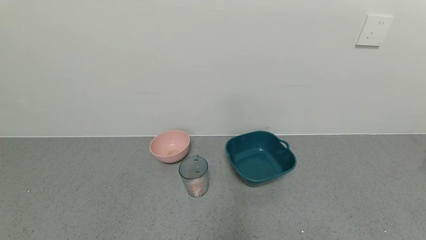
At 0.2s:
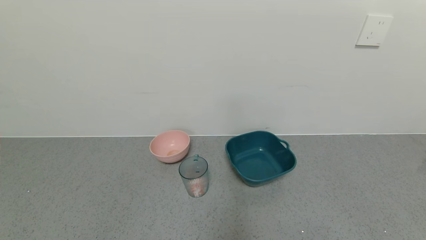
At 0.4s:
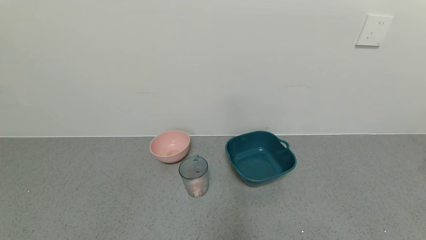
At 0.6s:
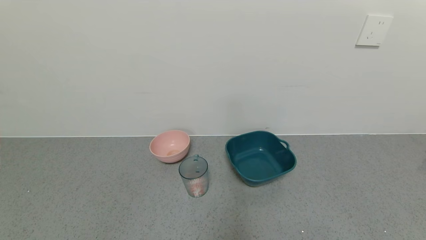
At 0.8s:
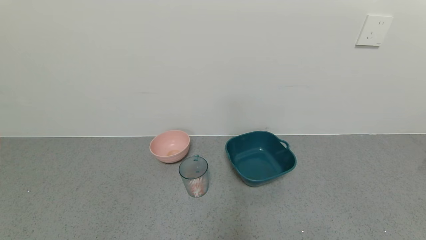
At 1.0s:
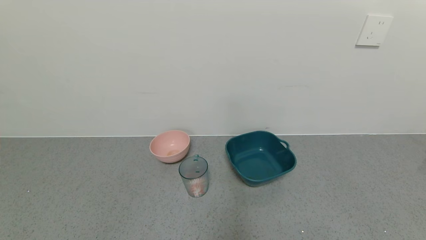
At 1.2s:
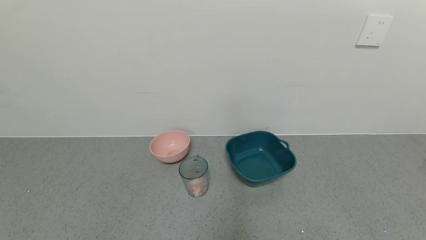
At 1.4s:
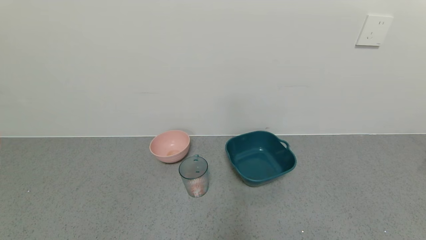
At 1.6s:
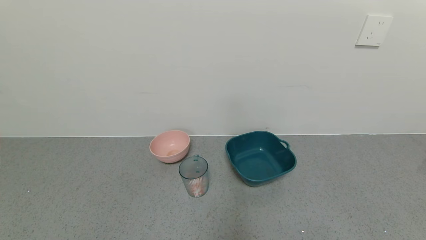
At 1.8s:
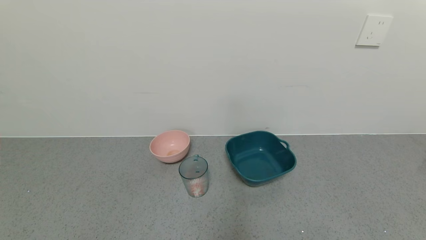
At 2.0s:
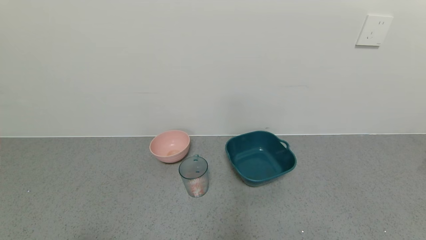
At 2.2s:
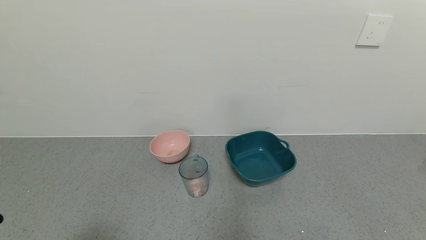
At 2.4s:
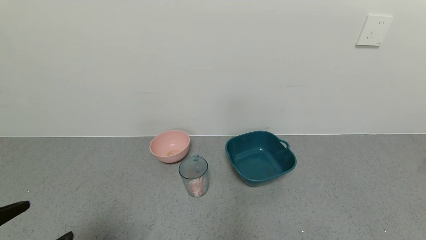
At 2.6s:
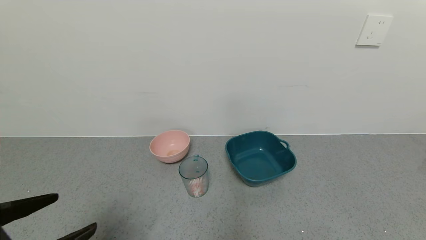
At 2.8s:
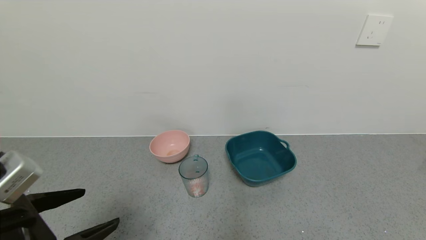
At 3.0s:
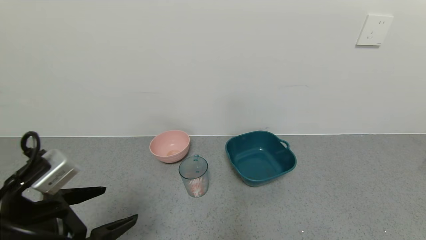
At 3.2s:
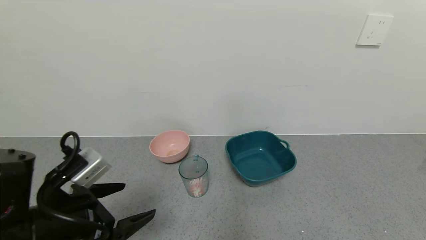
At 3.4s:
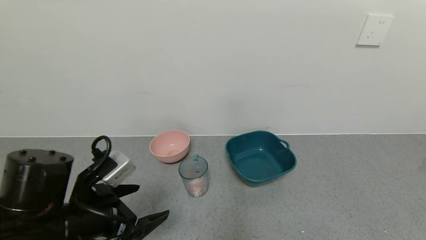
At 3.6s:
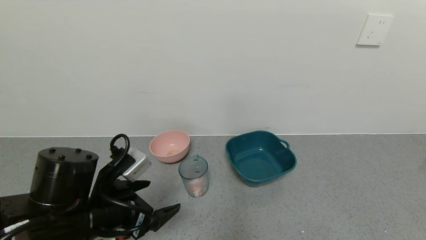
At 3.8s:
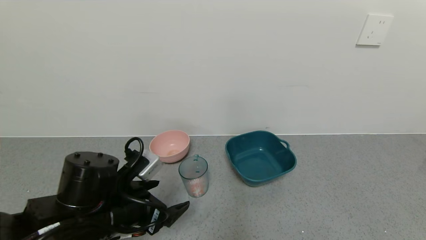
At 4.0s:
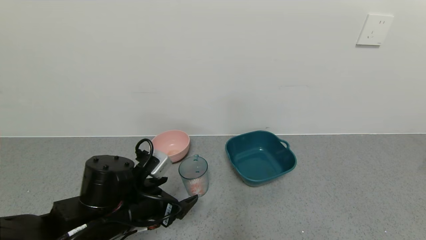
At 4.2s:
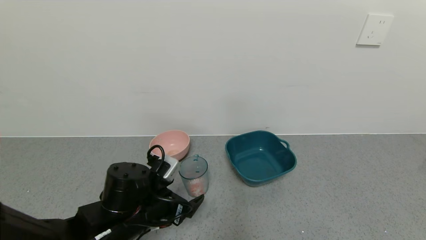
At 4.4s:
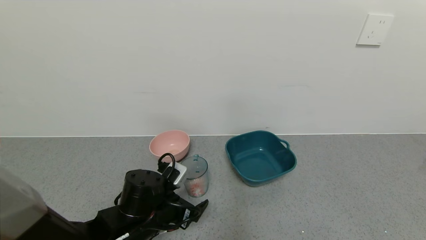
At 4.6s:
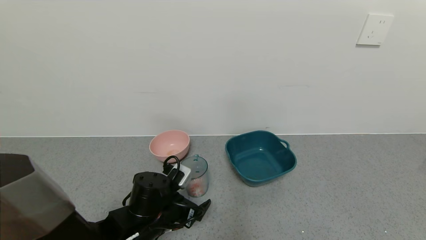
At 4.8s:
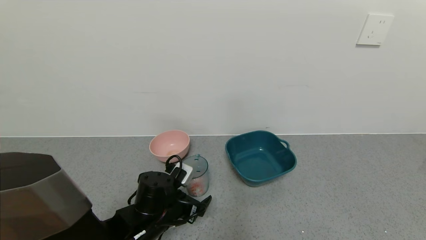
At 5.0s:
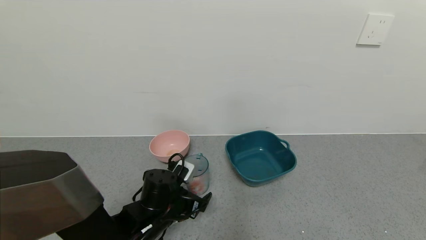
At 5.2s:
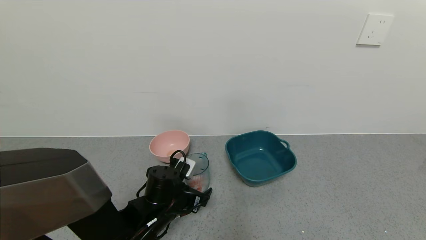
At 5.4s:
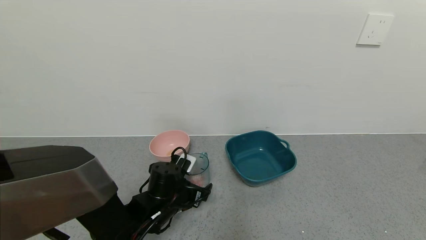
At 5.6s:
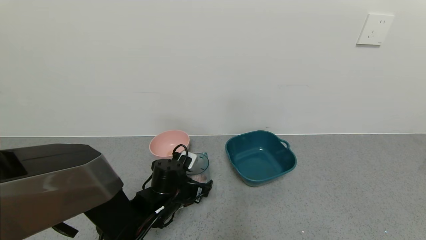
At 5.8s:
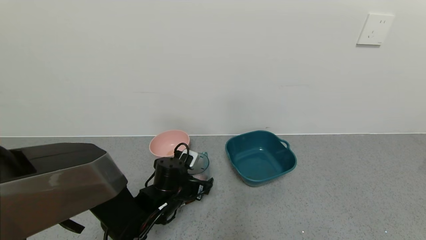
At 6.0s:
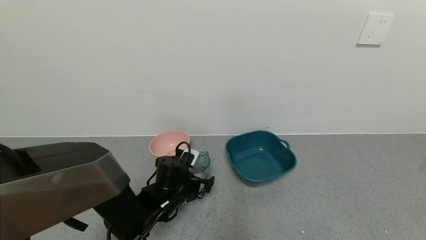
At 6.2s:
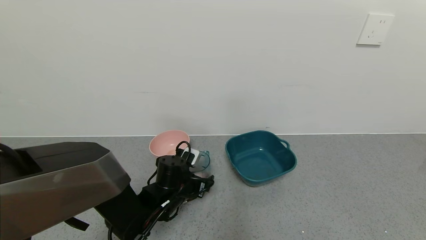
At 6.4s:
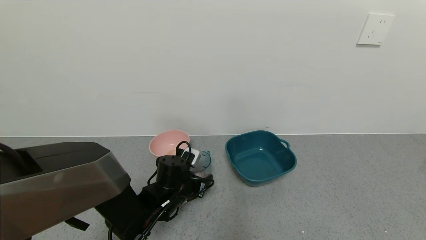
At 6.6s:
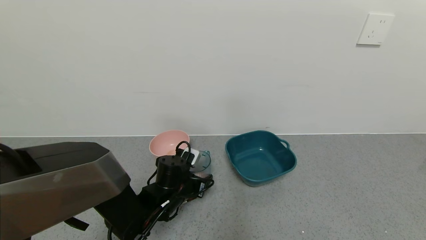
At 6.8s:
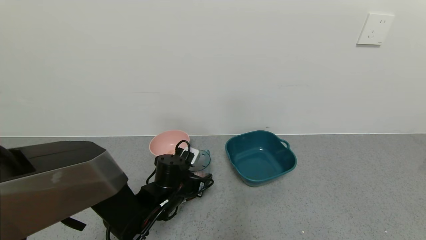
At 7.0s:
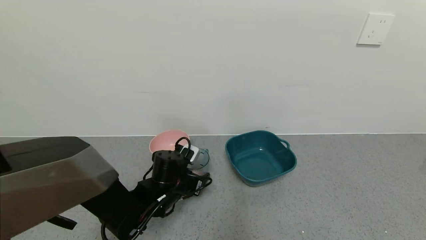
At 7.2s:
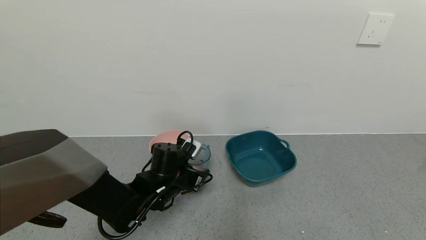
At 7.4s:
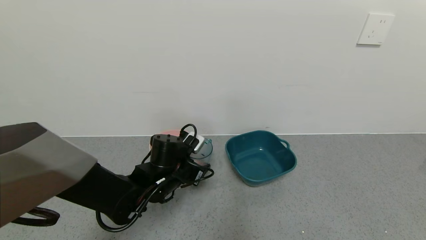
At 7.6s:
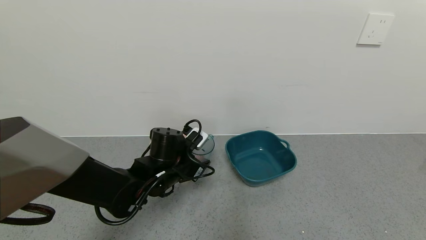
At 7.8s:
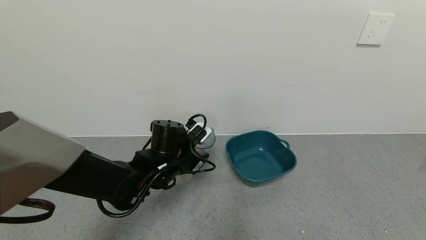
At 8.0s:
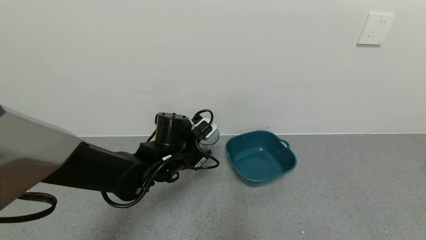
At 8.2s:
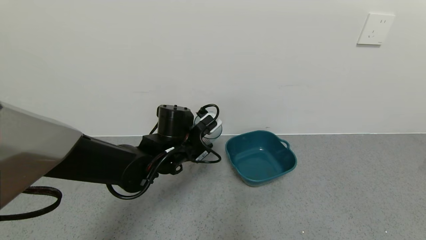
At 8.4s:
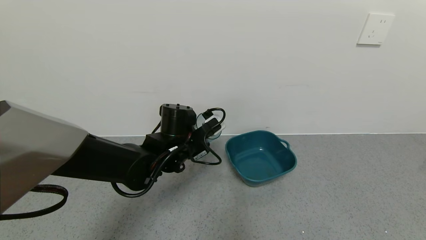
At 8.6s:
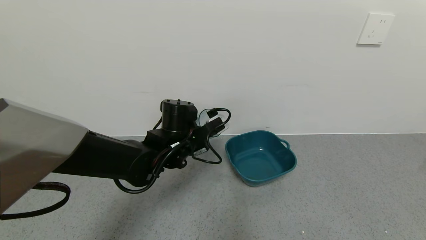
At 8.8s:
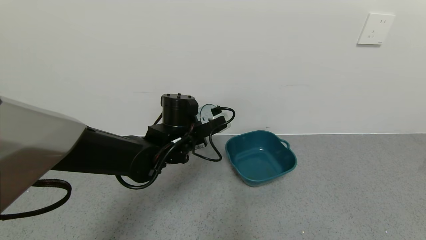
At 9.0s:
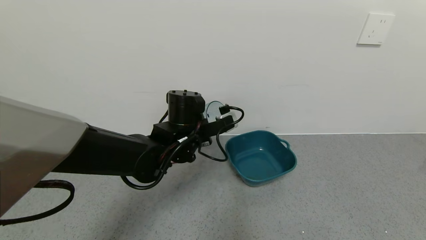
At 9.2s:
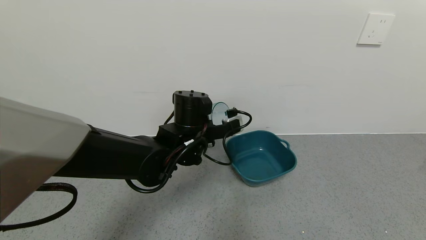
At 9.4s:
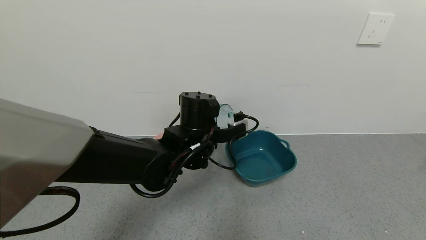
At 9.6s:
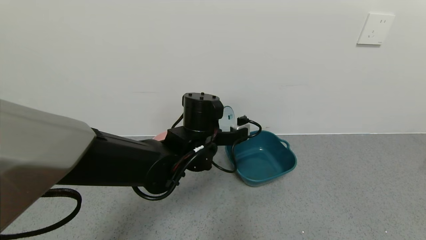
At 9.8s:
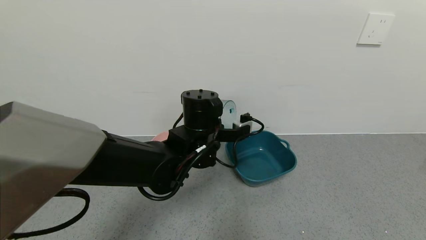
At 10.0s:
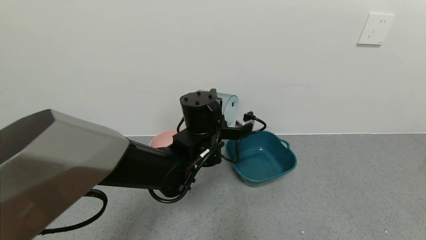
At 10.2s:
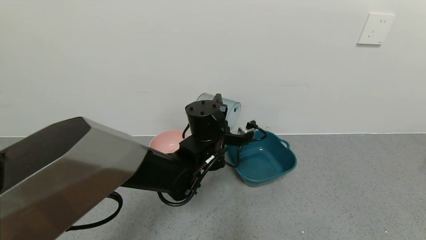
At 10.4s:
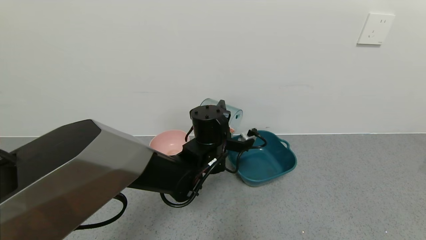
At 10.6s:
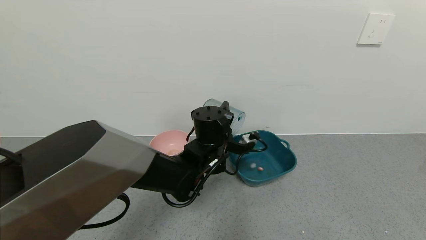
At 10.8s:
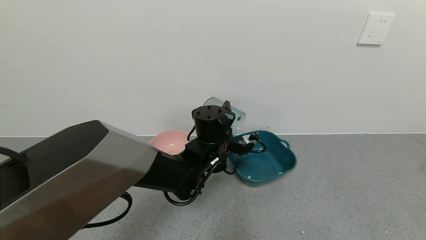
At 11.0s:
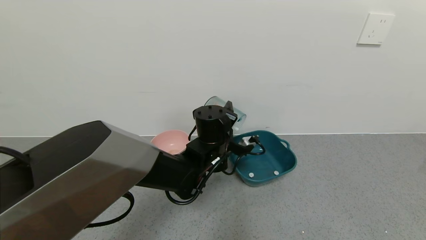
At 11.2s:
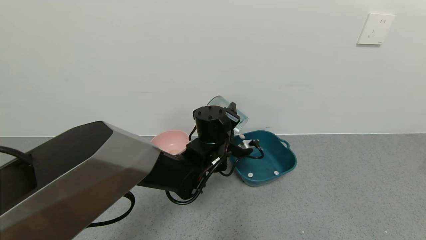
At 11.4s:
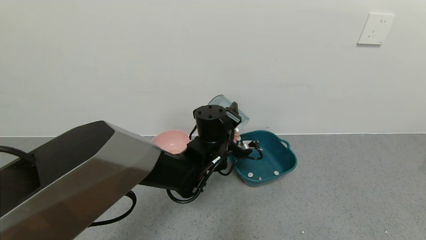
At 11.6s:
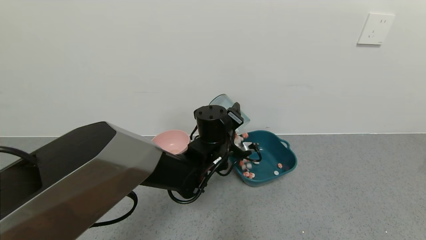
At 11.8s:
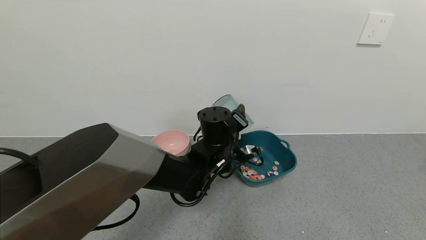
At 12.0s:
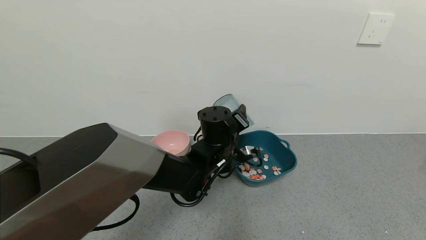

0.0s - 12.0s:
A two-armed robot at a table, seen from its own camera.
Task of the whole recording: use a gripper to pick up the cup and pour the solid into a bowl or tray.
Step, 0.0s - 6.2s: Grasp the glass of shrimp with the left gripper.
1.6s - 3.0s: The left gripper shifts approximately 15 cm forward.
3.0s - 4.4s: The left gripper moves downward, to the right and forward, some 20 cm.
4.4s - 6.0s: The left gripper moves forward, some 10 cm.
6.0s - 7.6s: The left gripper goes some 5 cm upward, and closes.
7.6s - 9.0s: The left gripper travels upward by approximately 5 cm.
9.0s - 10.4s: The left gripper goes approximately 5 cm to the right.

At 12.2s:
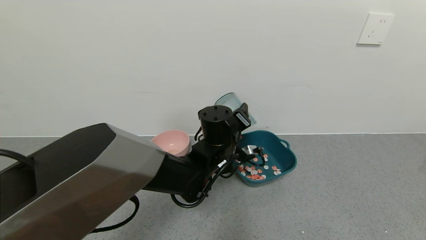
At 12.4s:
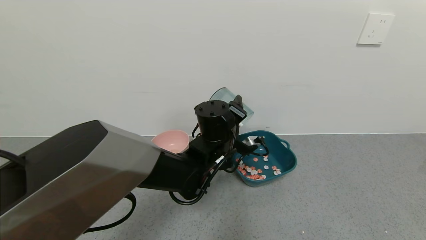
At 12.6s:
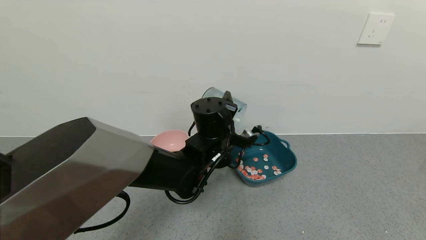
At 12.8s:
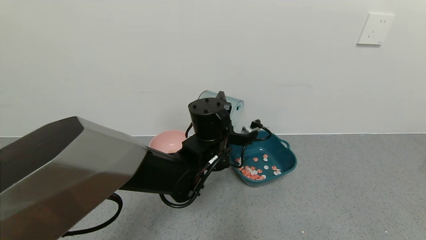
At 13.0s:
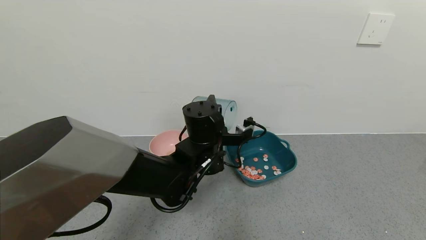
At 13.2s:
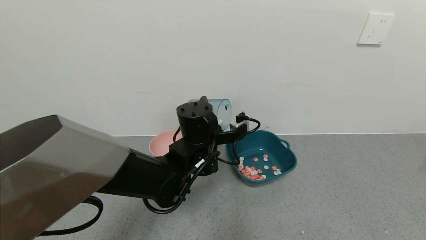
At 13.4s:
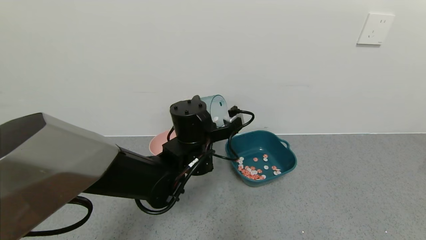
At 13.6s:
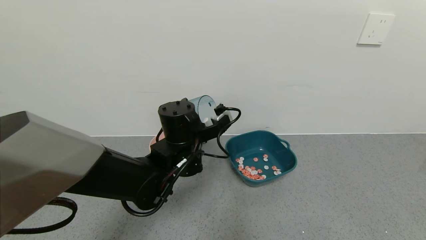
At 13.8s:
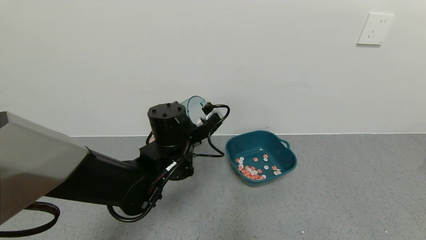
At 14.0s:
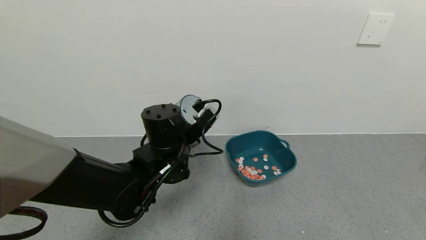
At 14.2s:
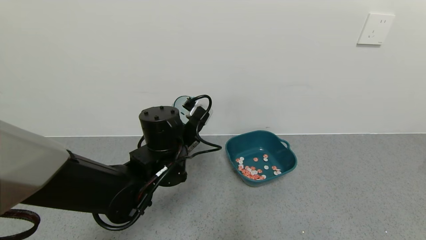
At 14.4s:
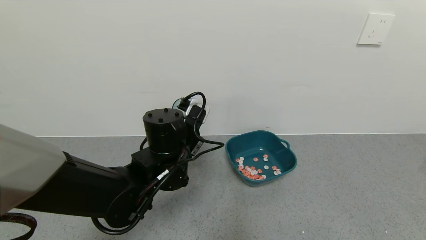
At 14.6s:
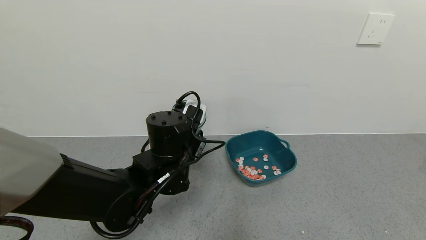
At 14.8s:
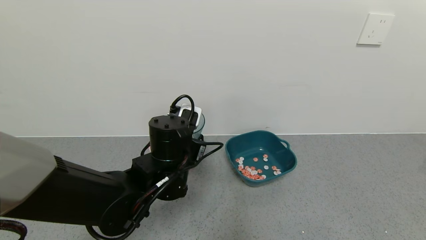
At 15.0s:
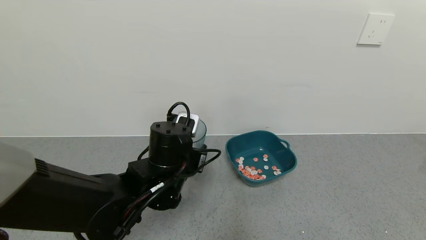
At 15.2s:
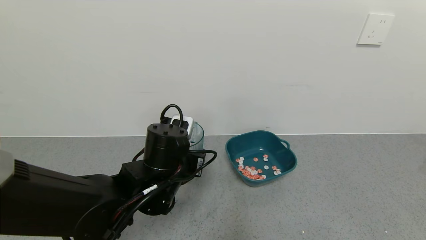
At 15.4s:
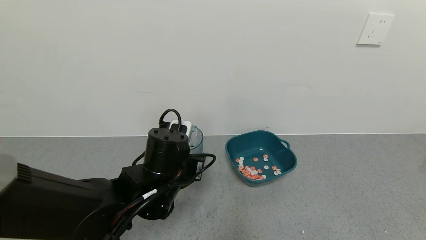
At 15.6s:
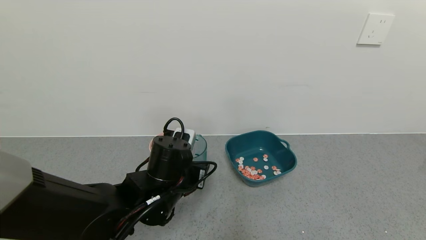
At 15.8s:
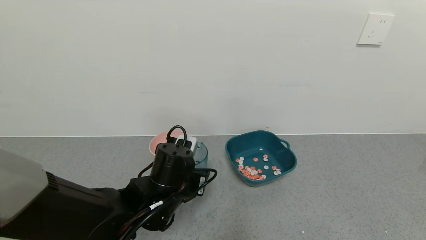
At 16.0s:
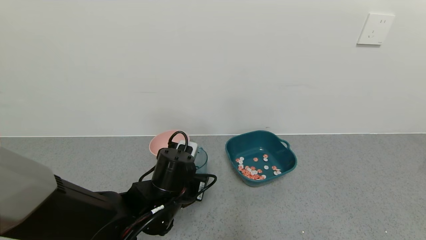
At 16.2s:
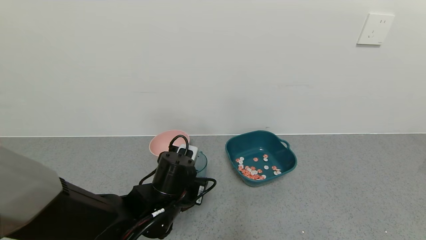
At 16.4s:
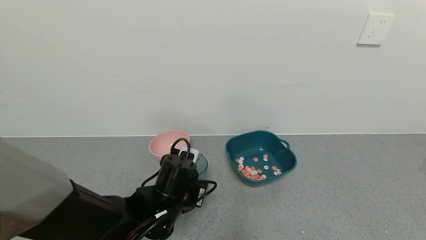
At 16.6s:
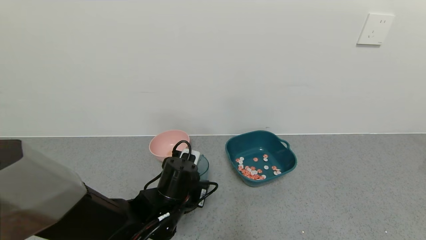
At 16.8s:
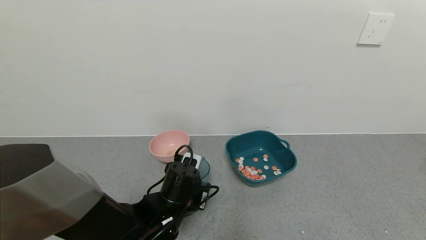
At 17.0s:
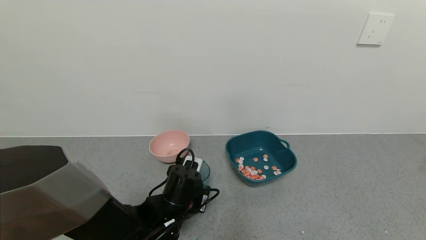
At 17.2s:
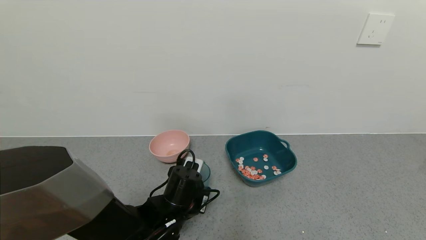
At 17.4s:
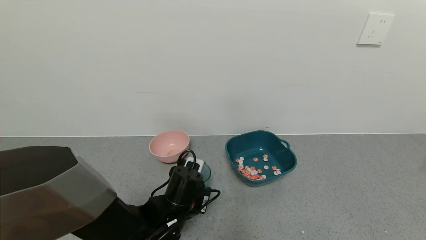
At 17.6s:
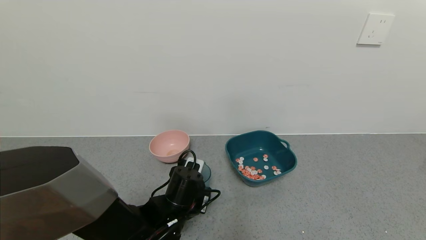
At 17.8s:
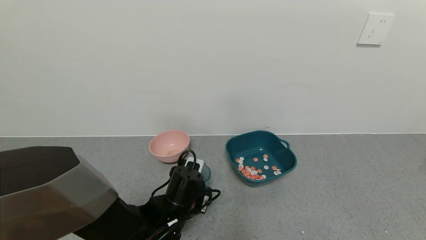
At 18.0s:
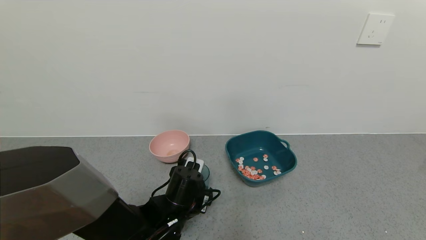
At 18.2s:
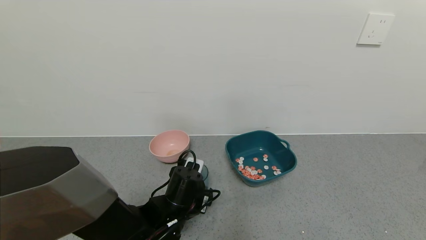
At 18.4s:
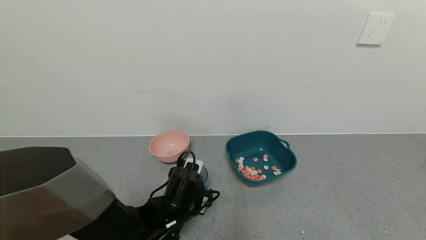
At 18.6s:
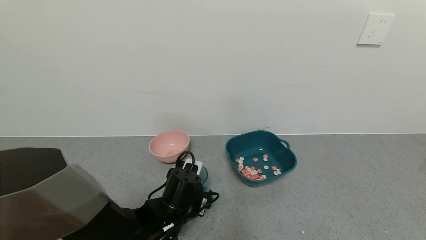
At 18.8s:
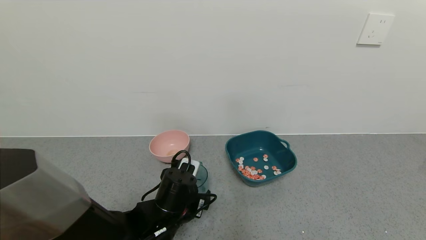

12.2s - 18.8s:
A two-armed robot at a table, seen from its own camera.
Task of the whole recording: use a gripper to pick up the cup and pour the solid into a bowl or tray.
12.2s - 13.8s: The left gripper travels to the left by roughly 10 cm.
13.8s - 15.4s: The left gripper is displaced backward by about 5 cm.
15.4s - 17.2s: The left gripper is displaced downward by about 10 cm.
17.2s - 18.8s: The left gripper opens.
